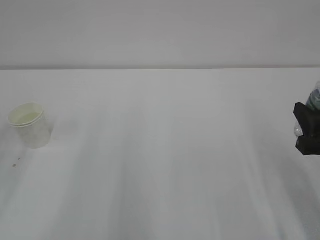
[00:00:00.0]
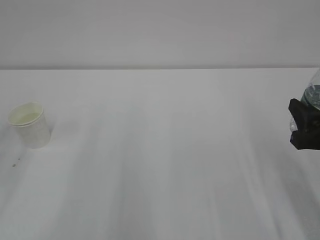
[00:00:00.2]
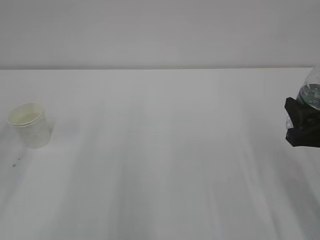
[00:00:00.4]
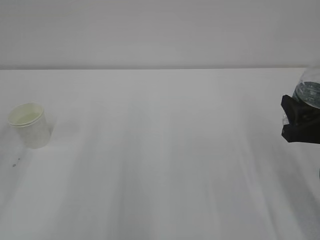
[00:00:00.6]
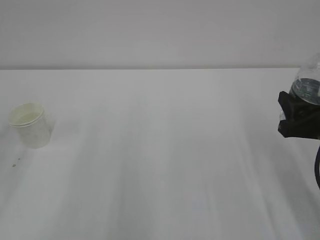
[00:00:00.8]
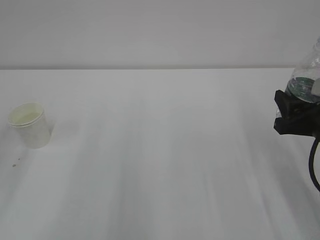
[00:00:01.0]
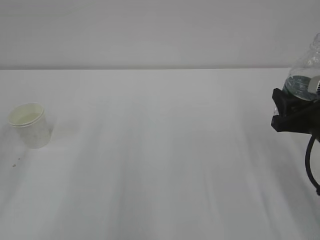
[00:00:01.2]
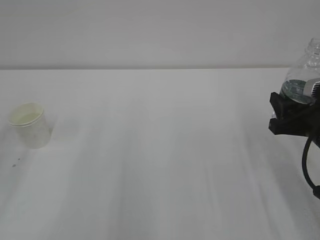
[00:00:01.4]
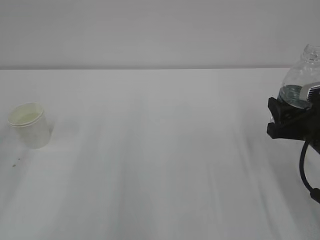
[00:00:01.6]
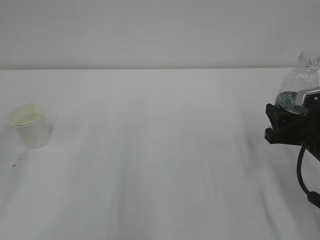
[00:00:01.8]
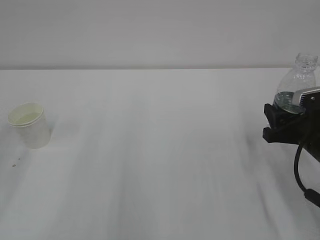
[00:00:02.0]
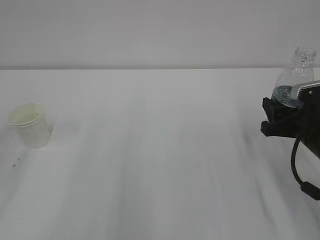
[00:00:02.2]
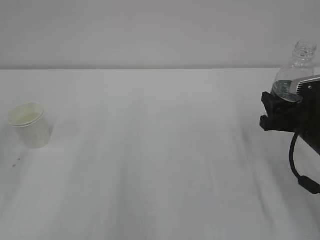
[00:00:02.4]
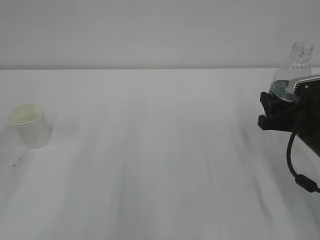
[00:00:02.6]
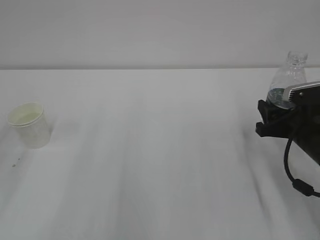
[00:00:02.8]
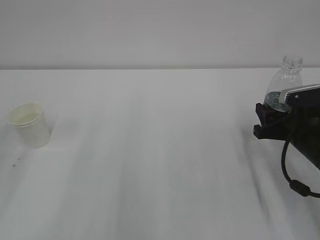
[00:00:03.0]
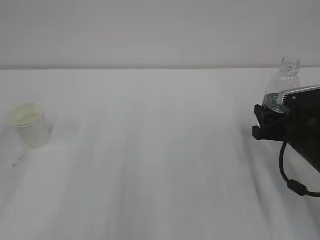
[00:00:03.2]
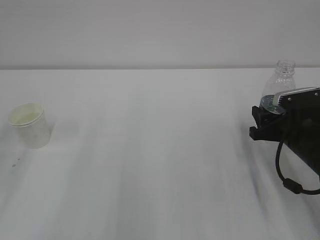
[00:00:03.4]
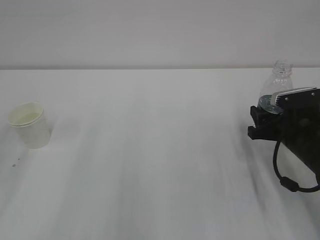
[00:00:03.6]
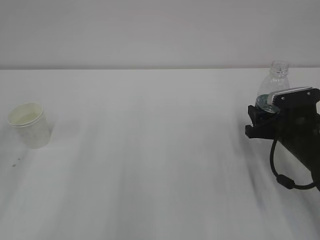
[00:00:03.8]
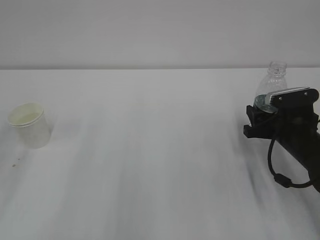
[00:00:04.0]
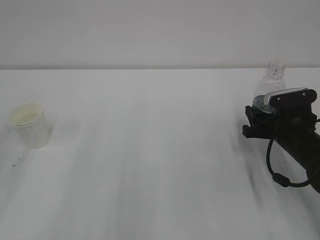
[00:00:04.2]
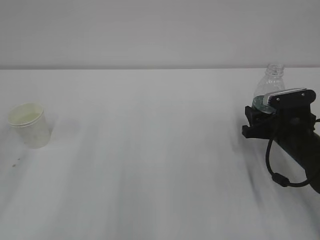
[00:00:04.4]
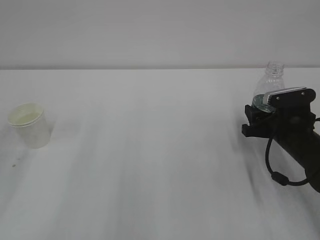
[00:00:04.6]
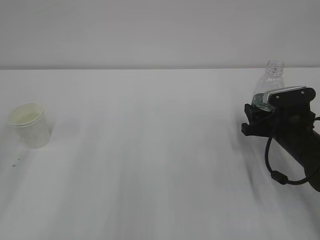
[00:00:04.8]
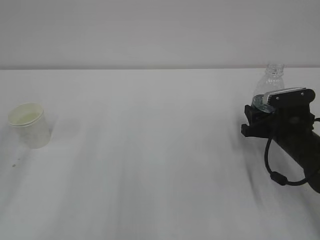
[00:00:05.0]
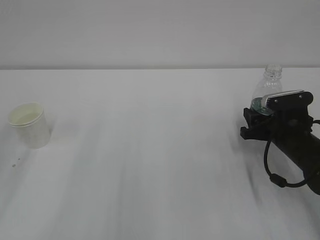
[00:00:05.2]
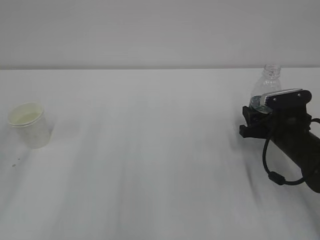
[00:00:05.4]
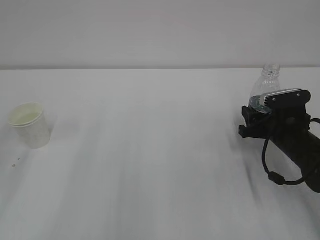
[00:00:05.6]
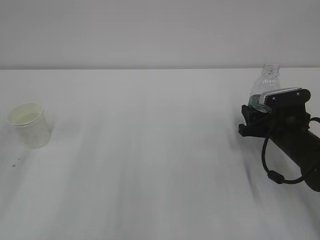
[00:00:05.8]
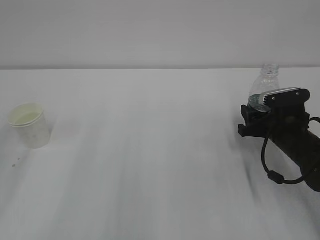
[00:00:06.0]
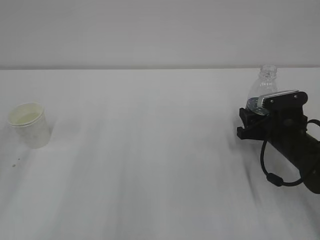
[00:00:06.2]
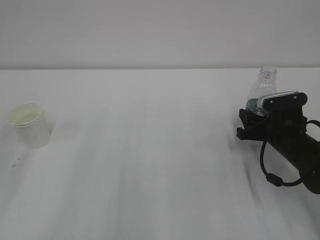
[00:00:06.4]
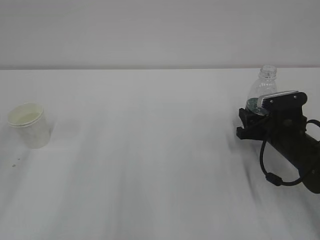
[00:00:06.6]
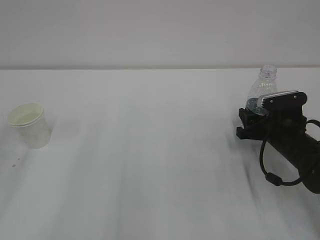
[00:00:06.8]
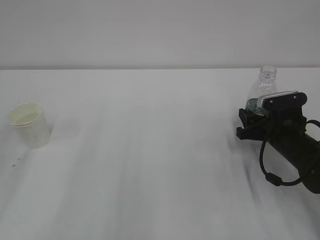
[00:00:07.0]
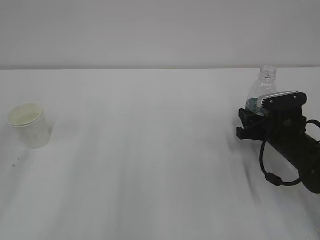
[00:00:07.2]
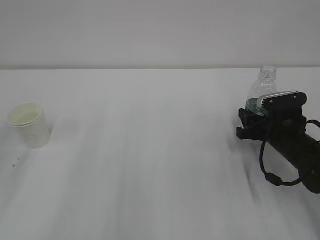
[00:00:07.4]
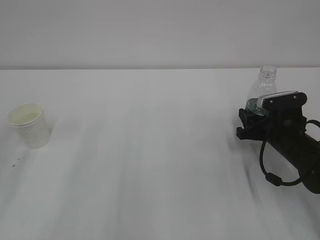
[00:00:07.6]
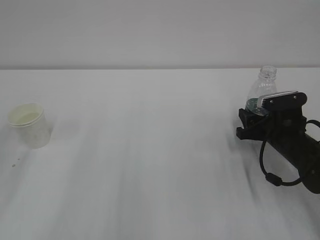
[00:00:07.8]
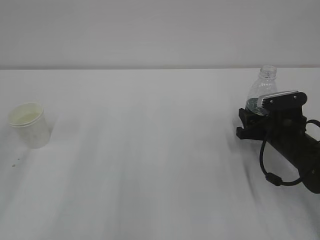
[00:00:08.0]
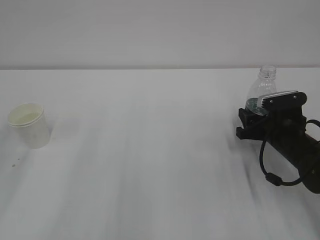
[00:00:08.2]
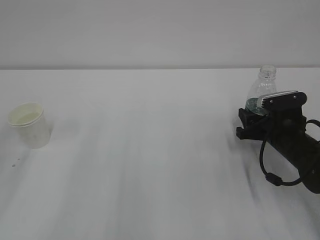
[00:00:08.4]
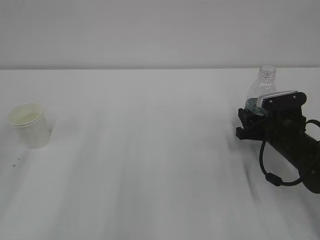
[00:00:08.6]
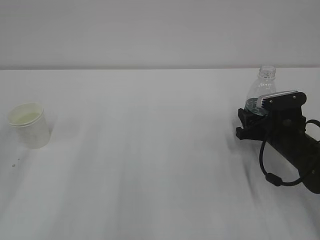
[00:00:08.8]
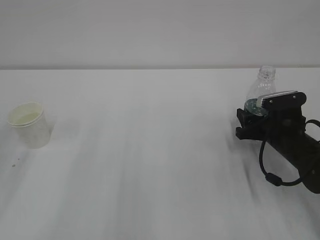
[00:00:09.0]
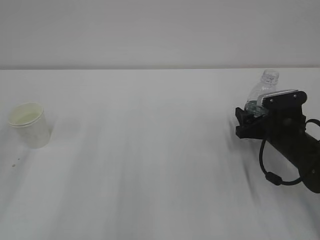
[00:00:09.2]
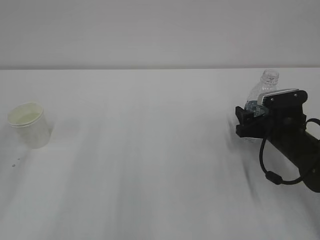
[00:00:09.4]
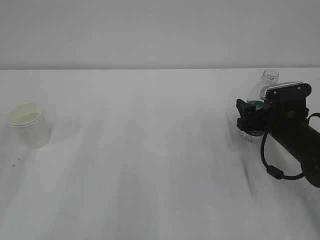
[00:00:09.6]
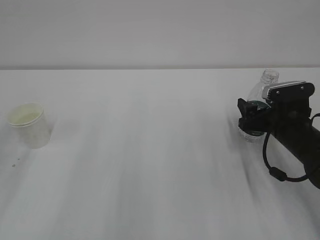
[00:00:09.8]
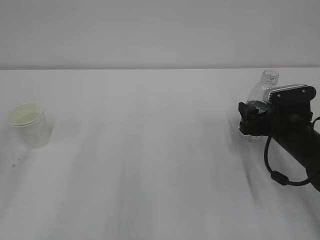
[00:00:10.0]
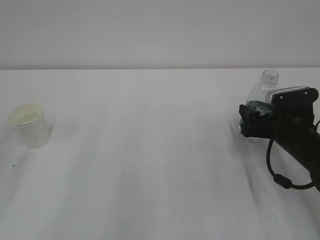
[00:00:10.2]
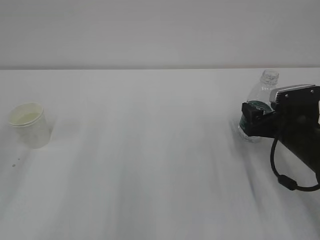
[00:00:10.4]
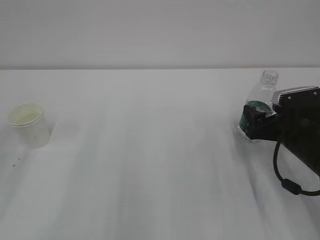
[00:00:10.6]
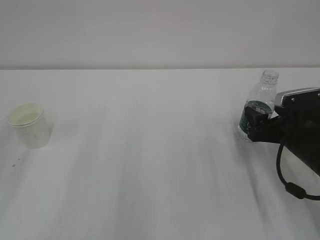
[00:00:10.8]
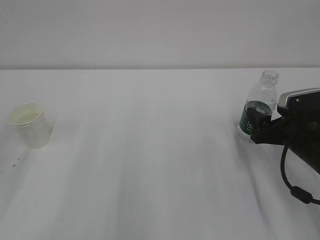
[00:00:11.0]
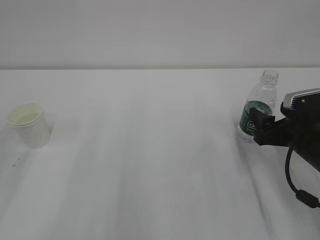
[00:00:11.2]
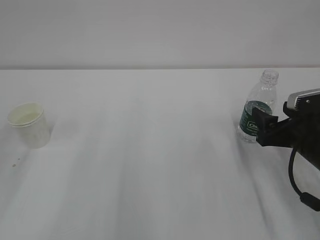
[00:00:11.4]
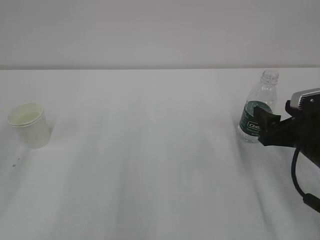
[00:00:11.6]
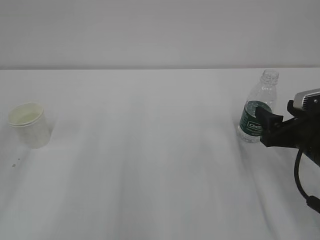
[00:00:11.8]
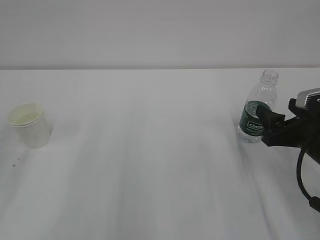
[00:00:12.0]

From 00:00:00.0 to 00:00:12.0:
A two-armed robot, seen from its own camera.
From 00:00:00.0 to 00:00:01.6: The right gripper goes some 5 cm forward.
From 00:00:01.6 to 00:00:03.0: The grippers stay close to where they were, moving slightly.
From 00:00:03.0 to 00:00:04.4: The grippers move only a little.
From 00:00:04.4 to 00:00:06.0: Both grippers stay put.
From 00:00:06.0 to 00:00:09.0: Both grippers stay about where they are.
From 00:00:09.0 to 00:00:10.4: The right gripper opens up.
From 00:00:10.4 to 00:00:12.0: The right gripper is displaced backward by some 5 cm.

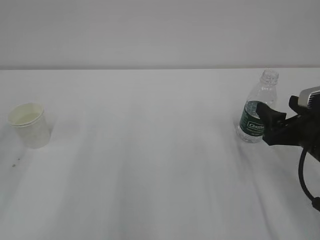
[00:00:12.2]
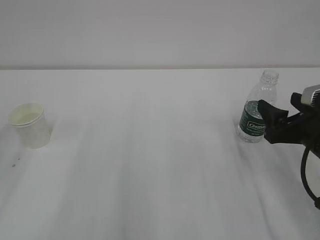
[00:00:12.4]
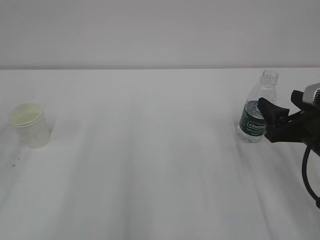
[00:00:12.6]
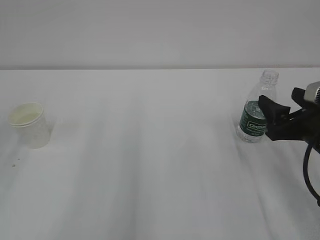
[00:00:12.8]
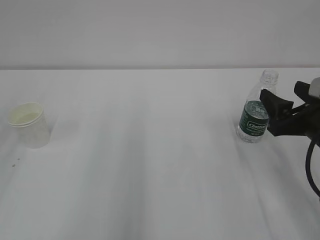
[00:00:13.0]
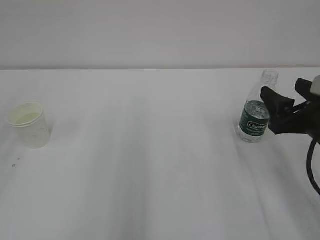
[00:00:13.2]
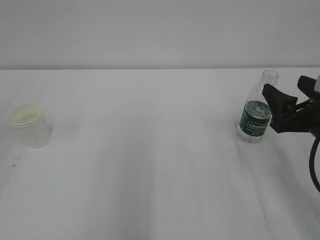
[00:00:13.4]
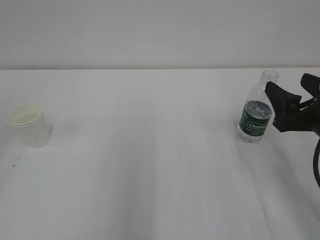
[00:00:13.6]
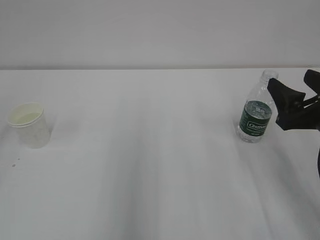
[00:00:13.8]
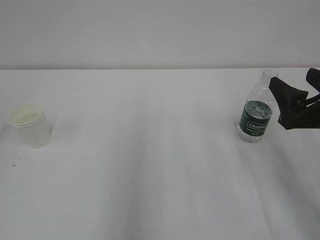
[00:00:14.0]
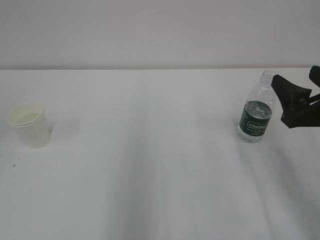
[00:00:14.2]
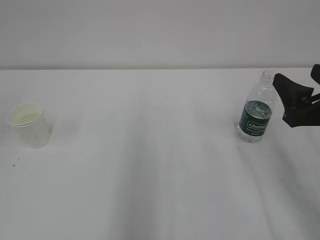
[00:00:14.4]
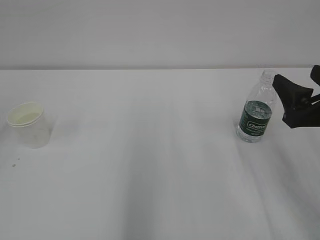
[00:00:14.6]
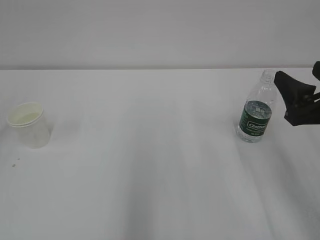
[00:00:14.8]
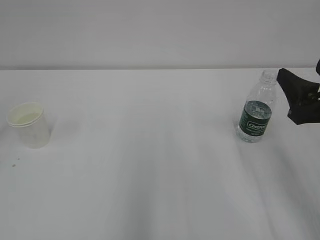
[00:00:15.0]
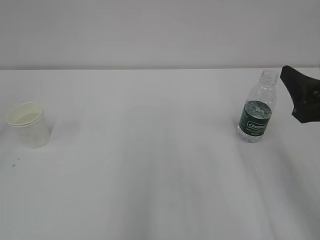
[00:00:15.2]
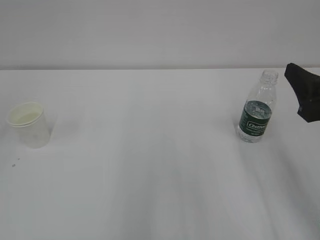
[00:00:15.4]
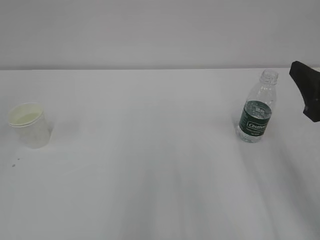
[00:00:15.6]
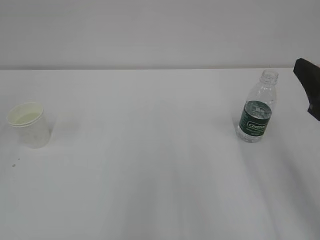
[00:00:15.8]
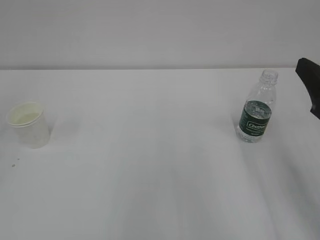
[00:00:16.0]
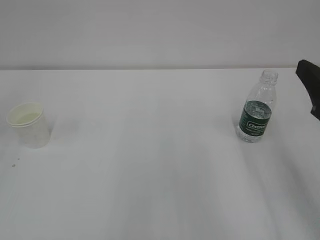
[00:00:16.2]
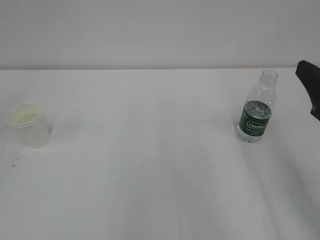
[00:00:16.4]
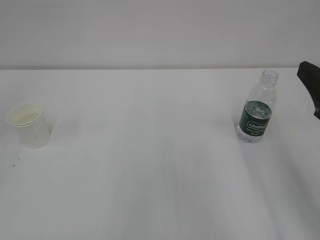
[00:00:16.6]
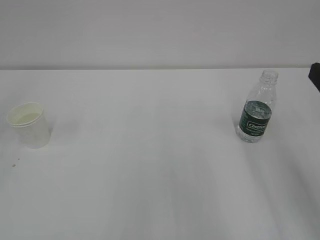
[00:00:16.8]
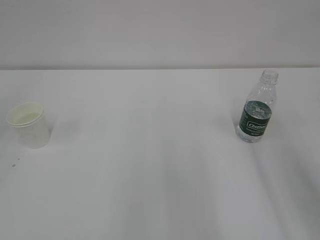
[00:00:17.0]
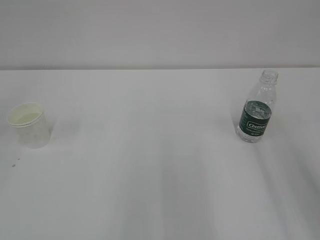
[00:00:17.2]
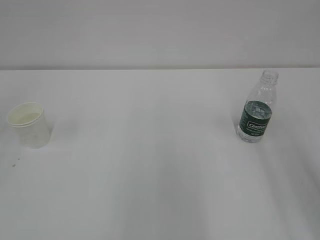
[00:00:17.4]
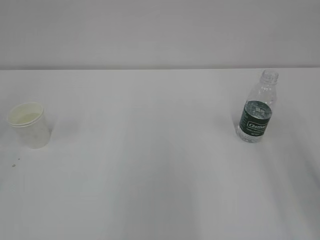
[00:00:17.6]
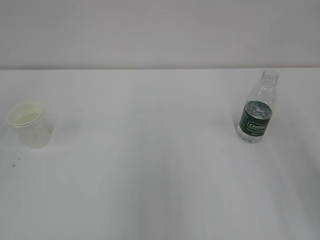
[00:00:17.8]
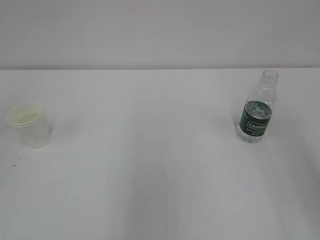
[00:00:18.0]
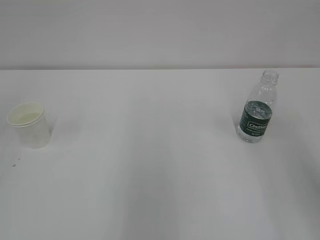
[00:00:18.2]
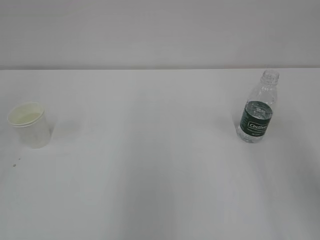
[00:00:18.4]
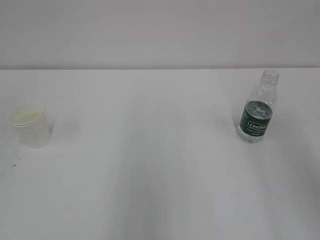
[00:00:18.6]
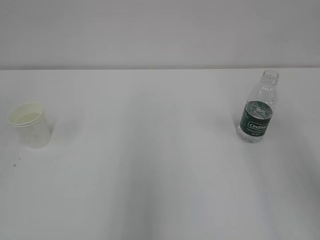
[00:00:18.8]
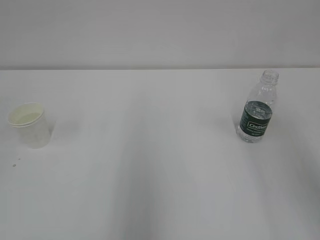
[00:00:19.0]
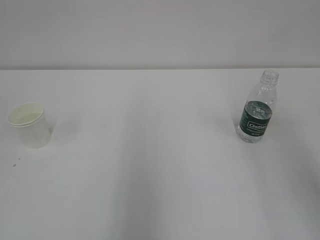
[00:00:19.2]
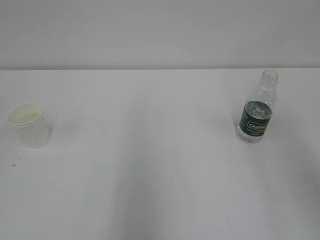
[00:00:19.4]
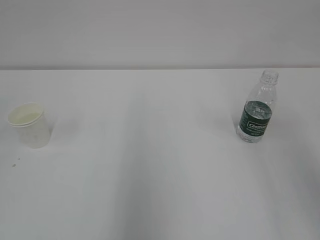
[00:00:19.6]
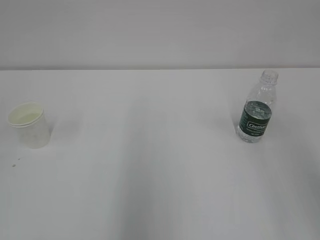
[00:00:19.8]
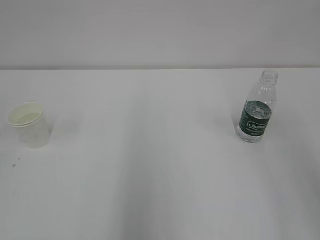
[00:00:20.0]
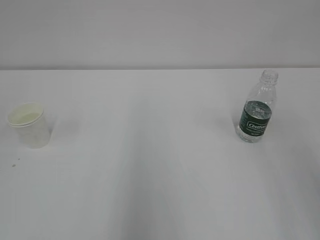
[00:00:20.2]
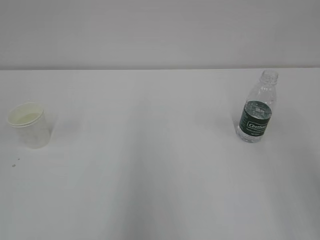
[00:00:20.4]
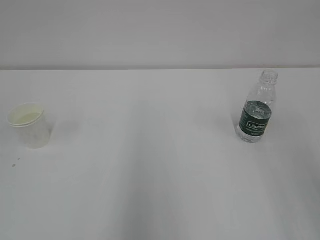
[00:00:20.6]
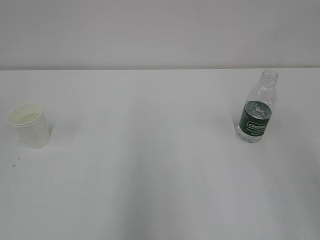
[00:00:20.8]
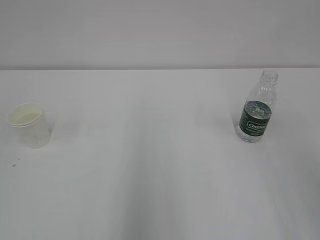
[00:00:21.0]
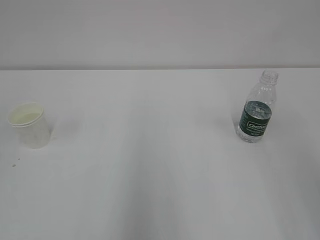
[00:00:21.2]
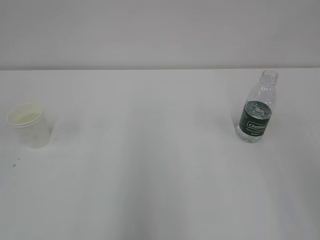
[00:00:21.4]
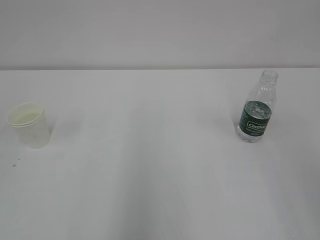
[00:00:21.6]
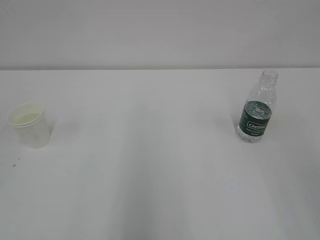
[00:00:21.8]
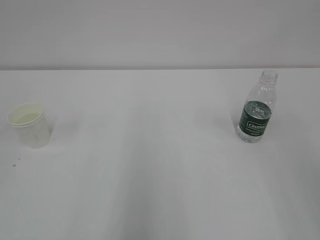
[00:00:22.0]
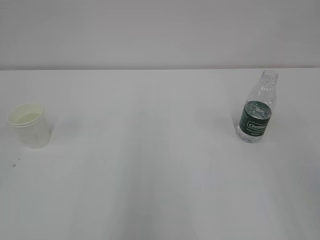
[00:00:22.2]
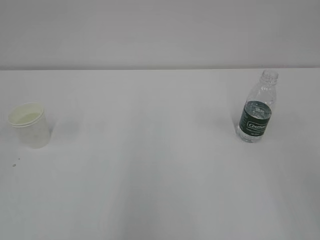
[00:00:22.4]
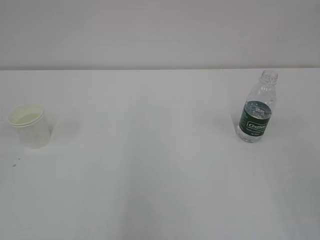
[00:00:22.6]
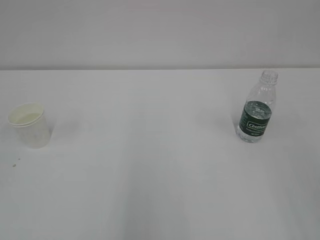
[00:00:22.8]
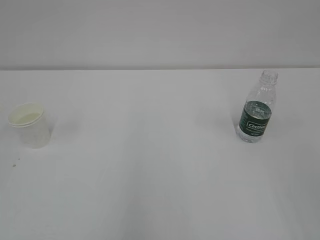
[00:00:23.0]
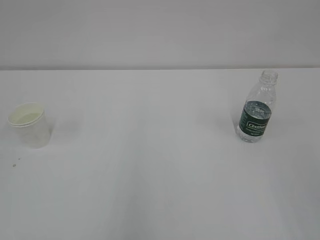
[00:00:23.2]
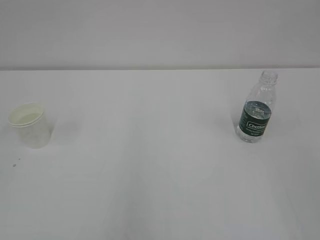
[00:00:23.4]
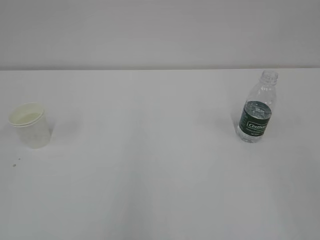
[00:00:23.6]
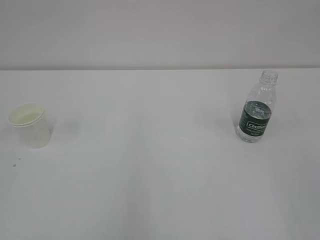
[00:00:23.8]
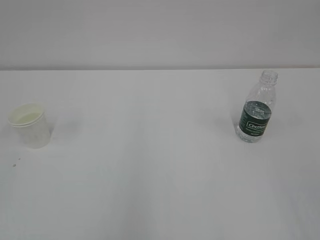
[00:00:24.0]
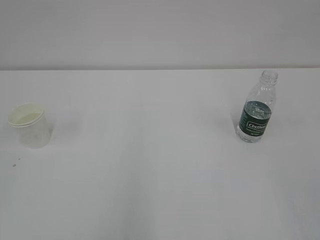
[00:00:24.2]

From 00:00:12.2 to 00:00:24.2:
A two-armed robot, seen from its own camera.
From 00:00:12.2 to 00:00:13.8: The right gripper moves roughly 5 cm.
From 00:00:16.6 to 00:00:18.2: The right gripper travels upward by about 10 cm.
